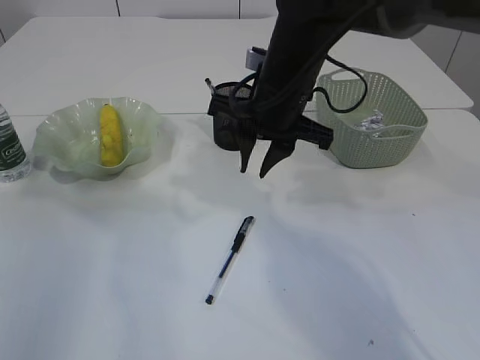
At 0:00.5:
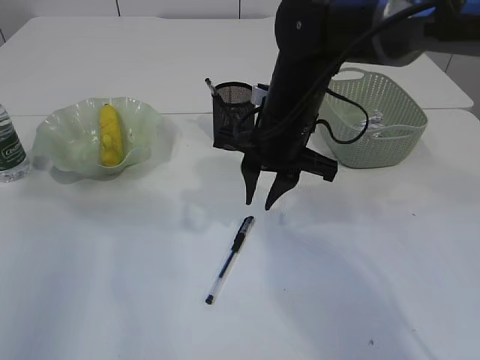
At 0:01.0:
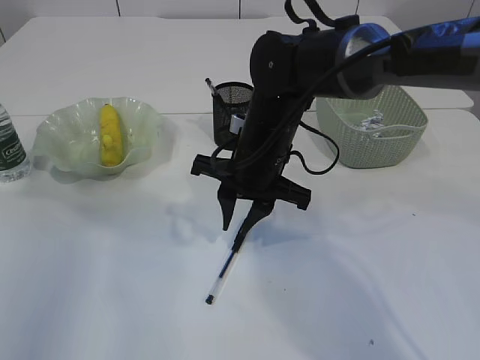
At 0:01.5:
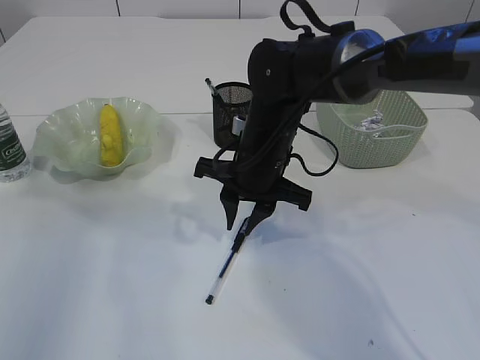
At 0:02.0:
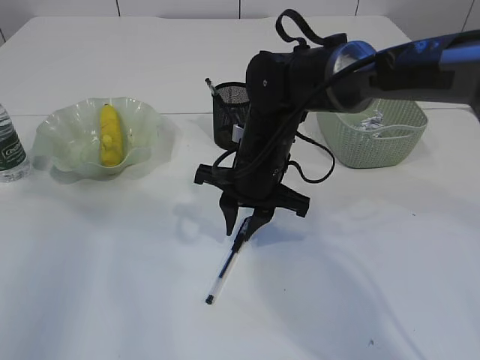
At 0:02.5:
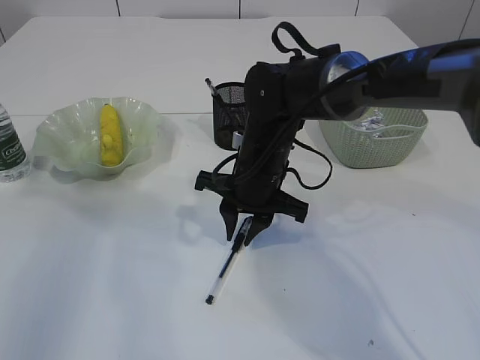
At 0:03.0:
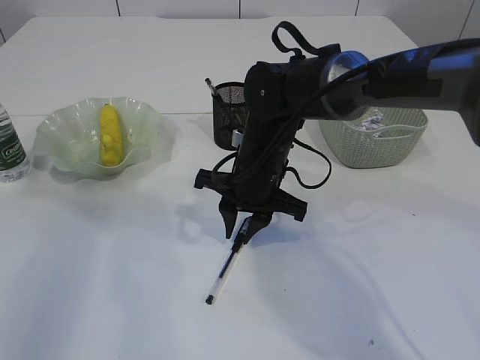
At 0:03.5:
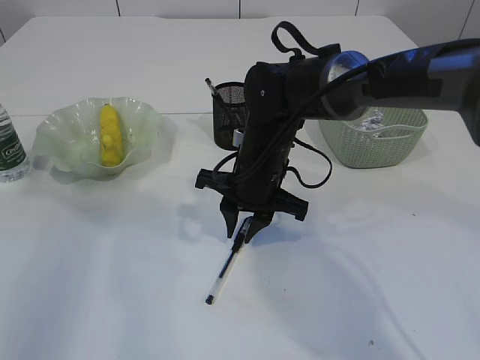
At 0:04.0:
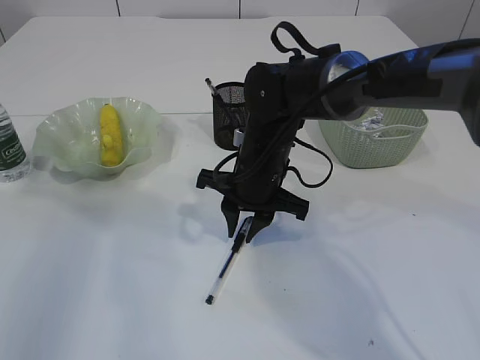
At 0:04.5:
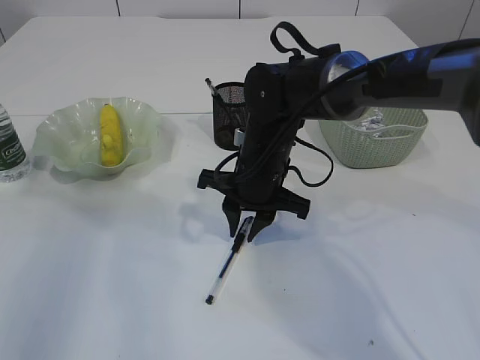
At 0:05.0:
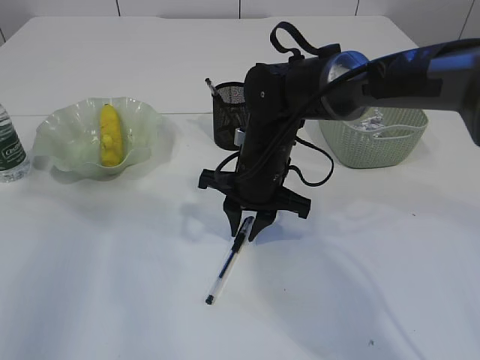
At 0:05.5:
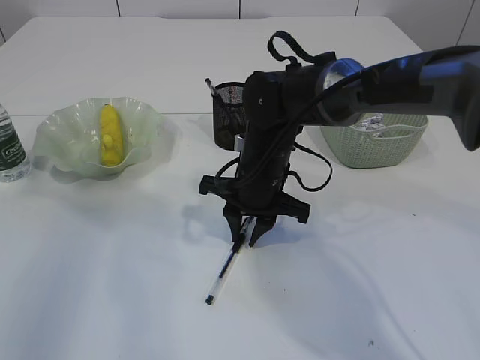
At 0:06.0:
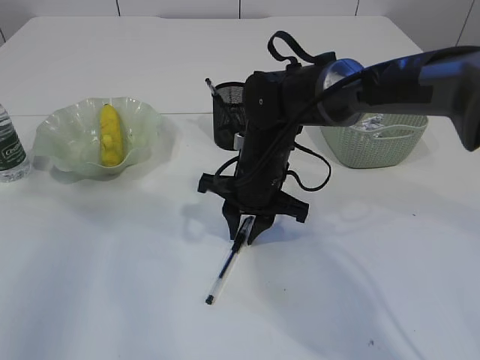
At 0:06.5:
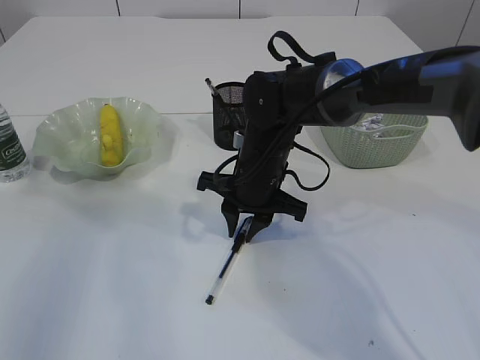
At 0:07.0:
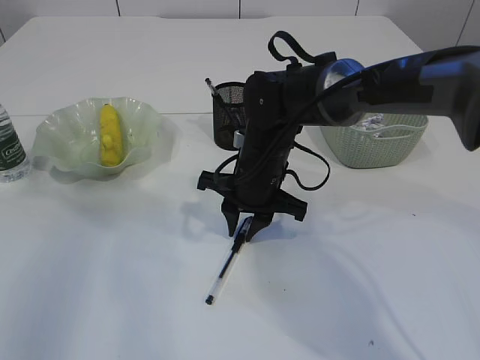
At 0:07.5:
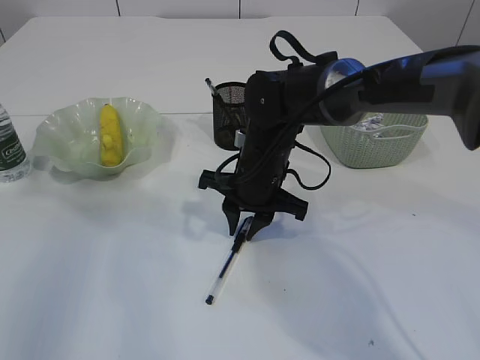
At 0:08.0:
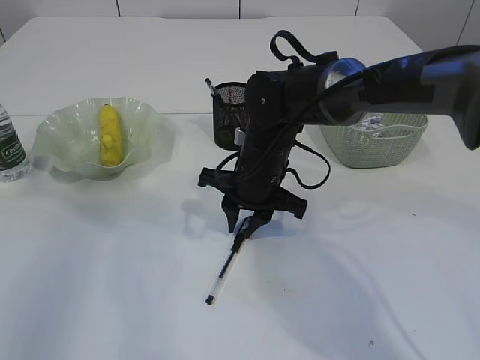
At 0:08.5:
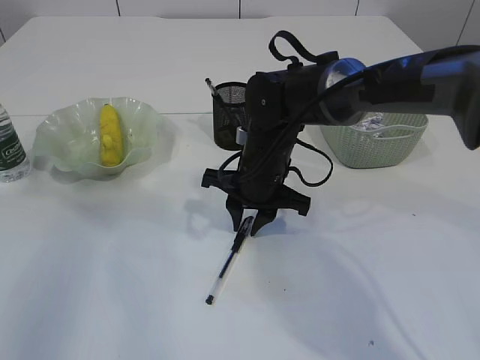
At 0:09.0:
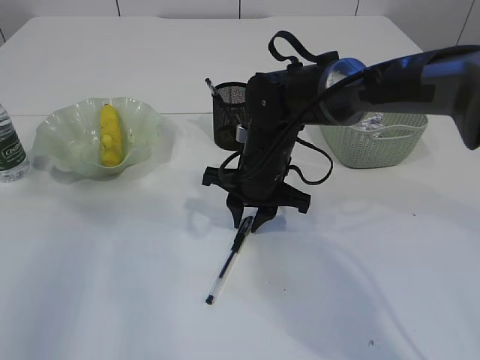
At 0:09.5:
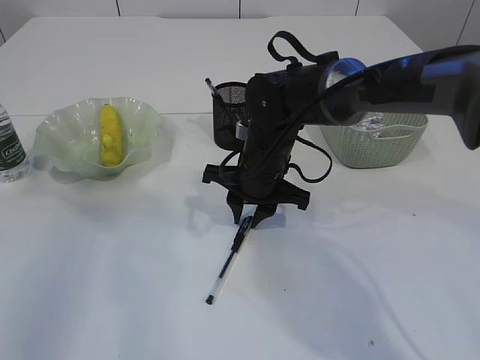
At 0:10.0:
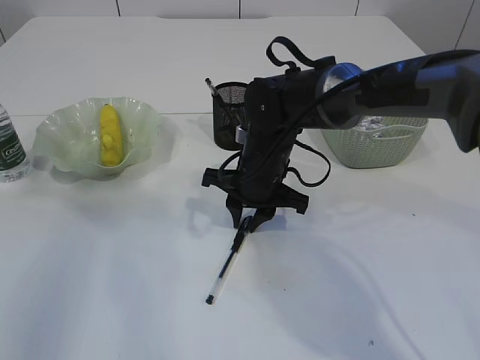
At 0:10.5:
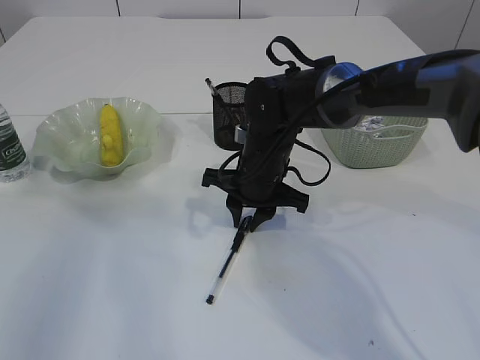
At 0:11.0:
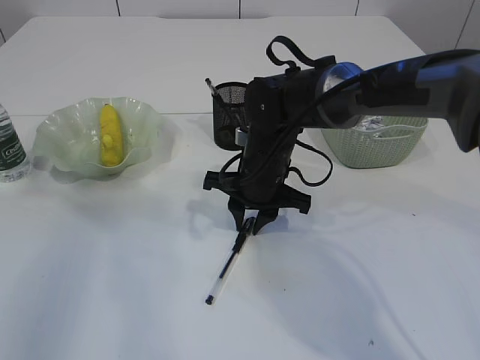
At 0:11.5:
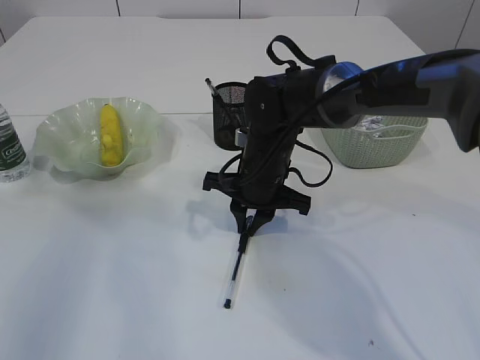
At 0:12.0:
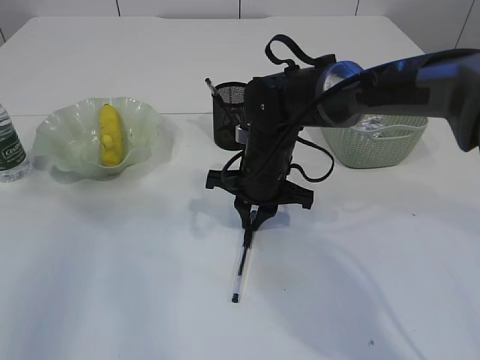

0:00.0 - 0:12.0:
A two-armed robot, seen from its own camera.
0:00.0 - 0:02.0: The right gripper shifts some 10 cm downward.
0:02.0 - 0:04.0: Both grippers stay about where they are.
0:04.0 - 0:08.0: Both grippers stay about where they are.
0:08.0 - 0:10.0: The grippers stay close to where they were, moving slightly.
0:10.0 - 0:12.0: Both grippers stay about where they are.

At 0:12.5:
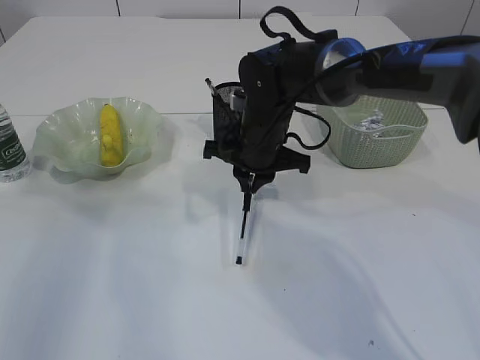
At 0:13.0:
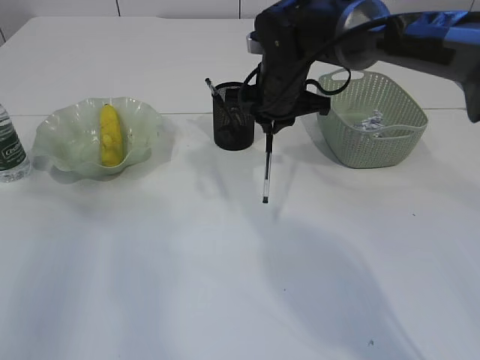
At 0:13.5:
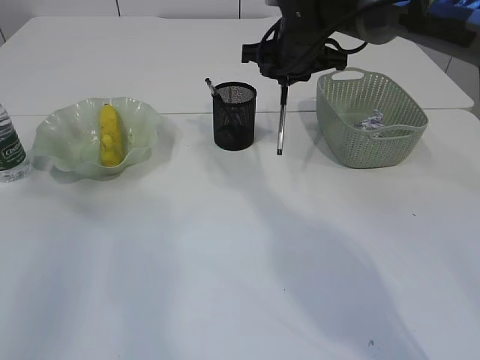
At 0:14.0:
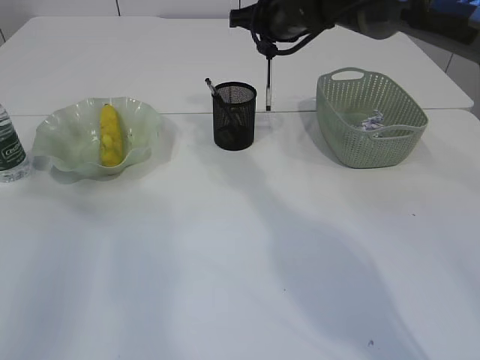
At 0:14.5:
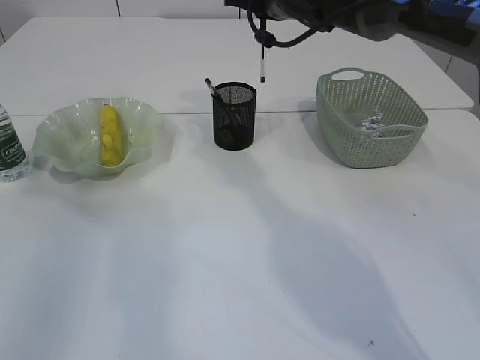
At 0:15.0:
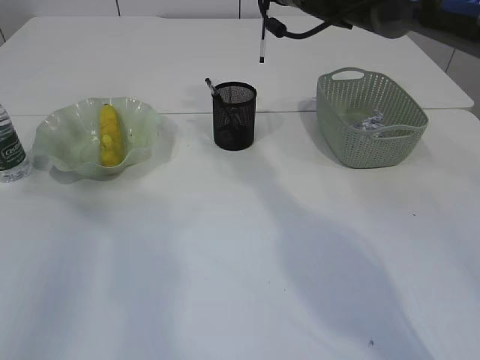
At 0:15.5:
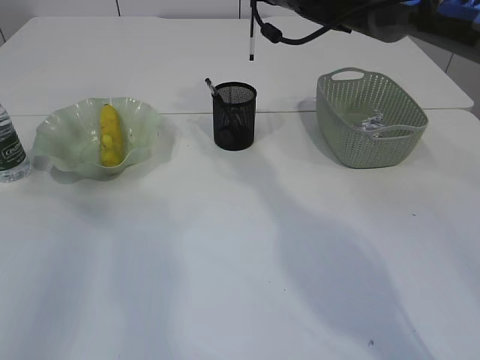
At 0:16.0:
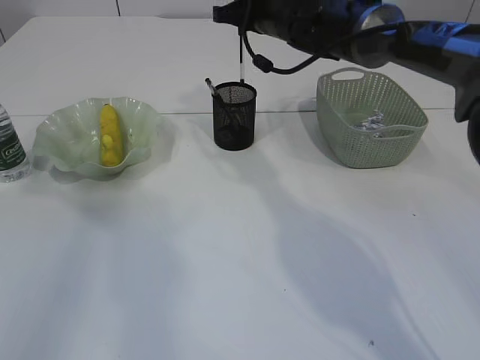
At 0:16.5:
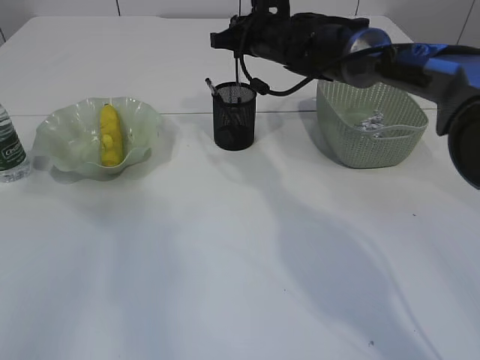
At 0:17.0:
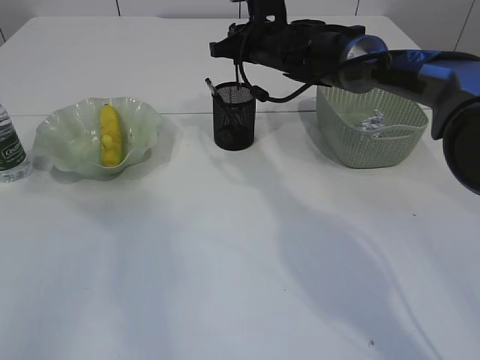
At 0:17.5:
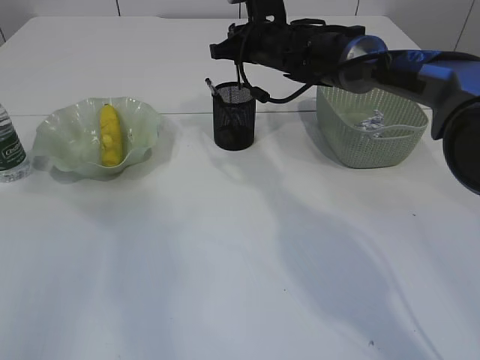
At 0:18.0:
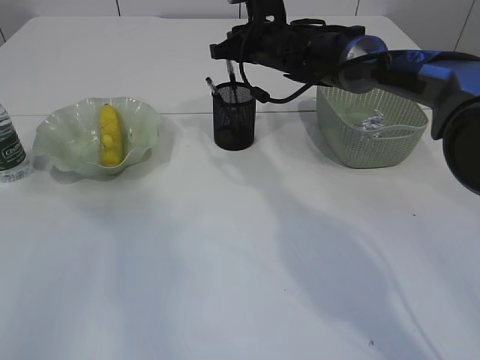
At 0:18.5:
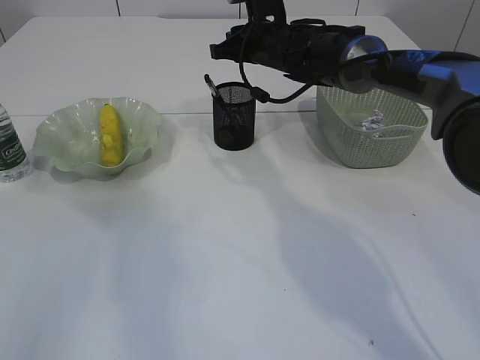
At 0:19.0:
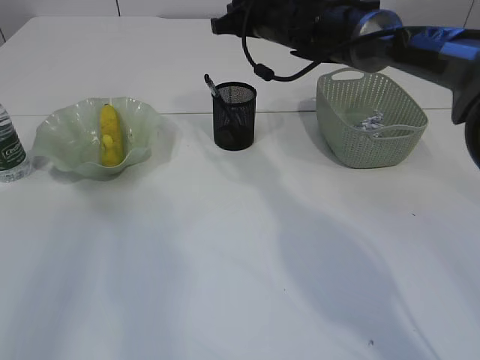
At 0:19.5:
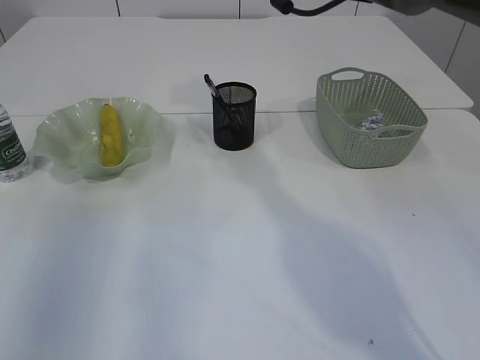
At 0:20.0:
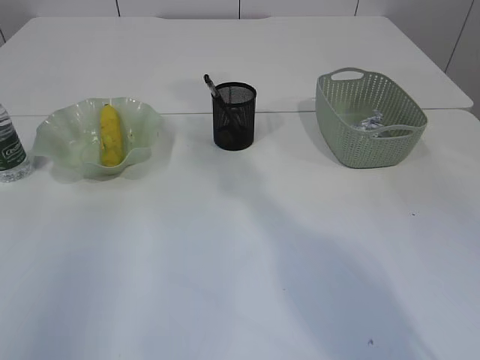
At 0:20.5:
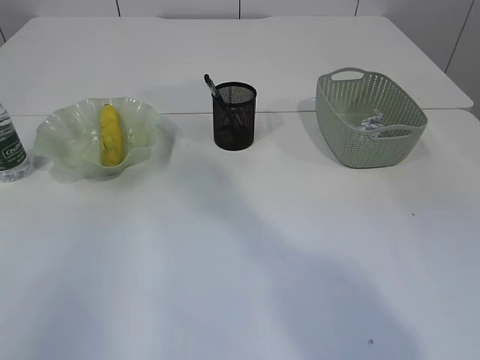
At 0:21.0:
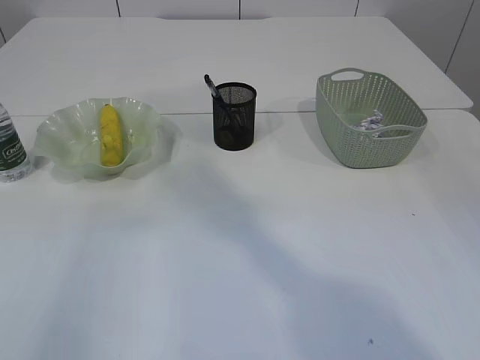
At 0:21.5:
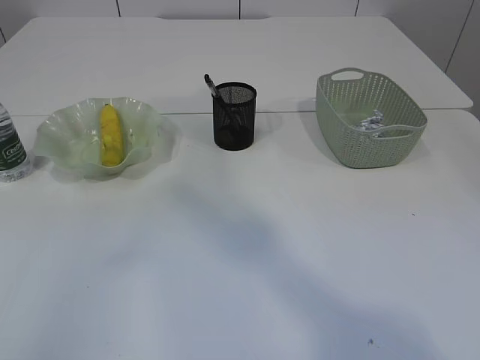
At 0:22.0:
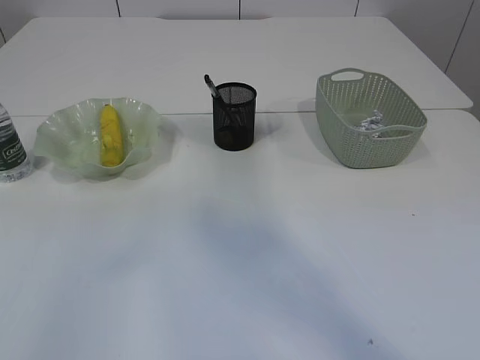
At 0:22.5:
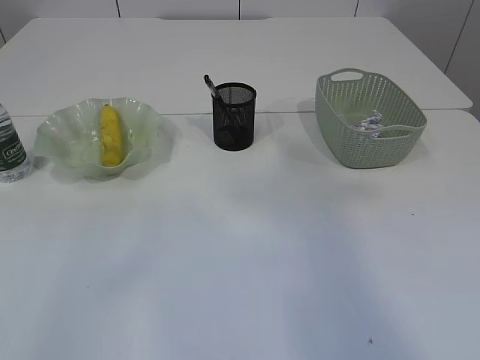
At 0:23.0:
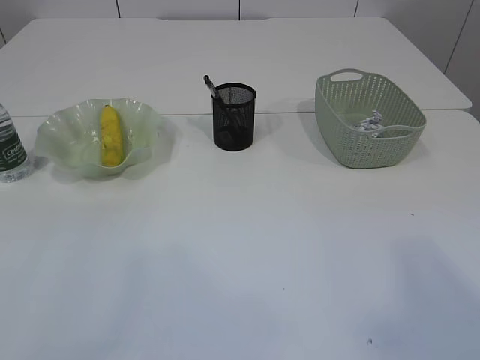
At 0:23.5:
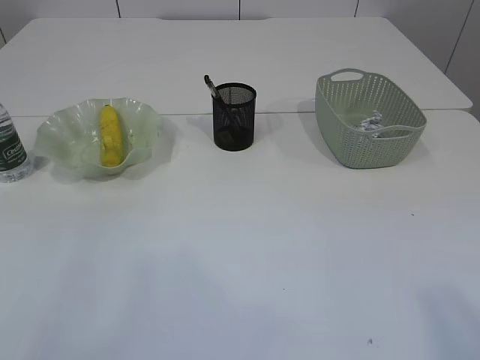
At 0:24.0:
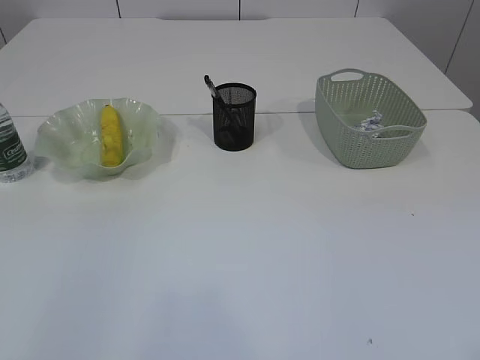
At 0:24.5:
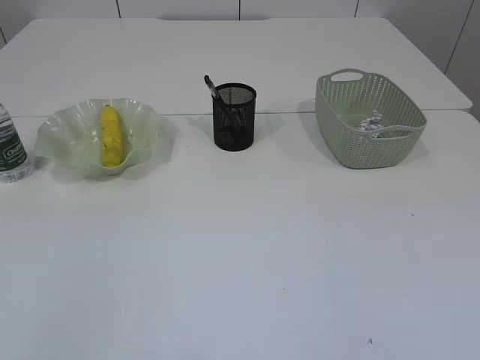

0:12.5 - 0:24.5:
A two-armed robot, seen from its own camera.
Step, 0:13.0 - 0:18.0: Place the pen into the pen holder.
0:12.5 - 0:14.5: The right gripper travels upward and forward by approximately 15 cm.
0:14.5 - 0:16.5: The right gripper goes about 5 cm downward.
0:16.5 - 0:18.5: Both grippers stay put.
0:18.5 - 0:20.5: The two grippers go some 25 cm upward and backward.
0:20.5 - 0:22.5: The left gripper is displaced backward by approximately 15 cm; the right gripper heads backward, to the right and upward, covering some 40 cm.
0:22.5 - 0:24.5: The right gripper shifts roughly 30 cm backward, downward and to the right.

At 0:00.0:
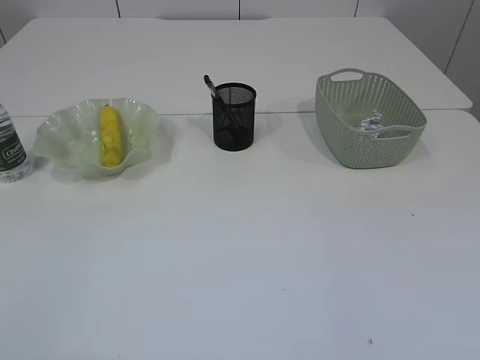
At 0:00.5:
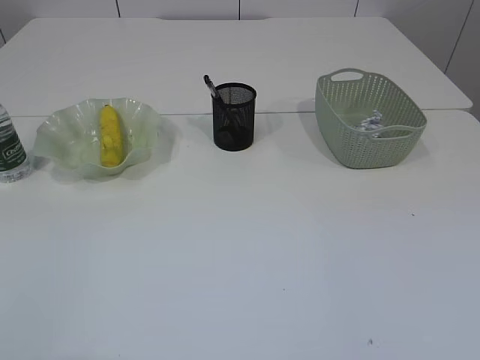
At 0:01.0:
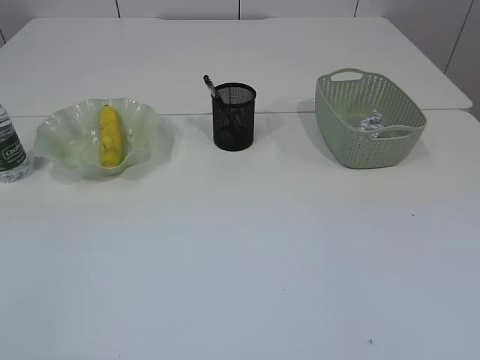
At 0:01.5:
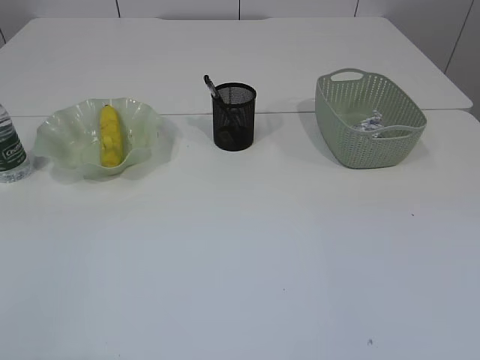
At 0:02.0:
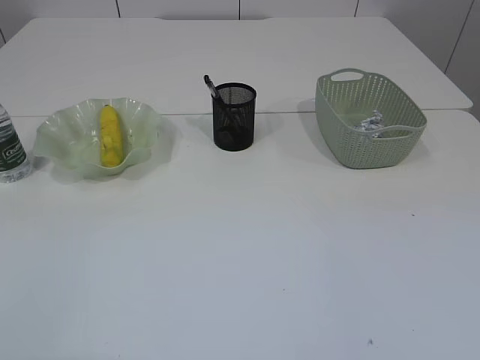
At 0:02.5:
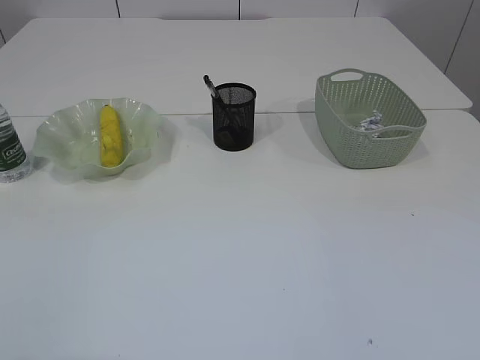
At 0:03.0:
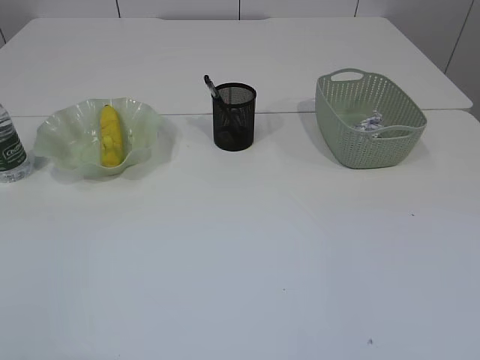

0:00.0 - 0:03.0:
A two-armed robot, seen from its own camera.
0:00.0 - 0:01.5: Both grippers stay put.
